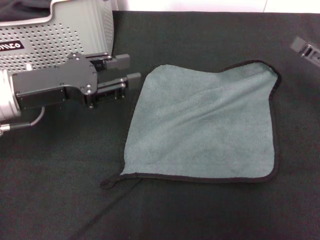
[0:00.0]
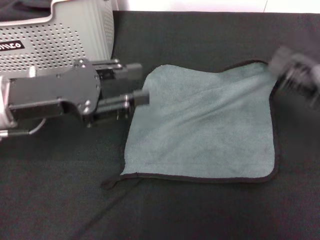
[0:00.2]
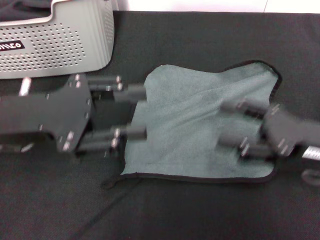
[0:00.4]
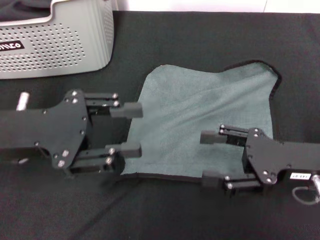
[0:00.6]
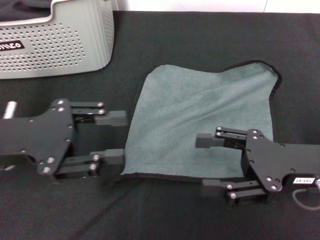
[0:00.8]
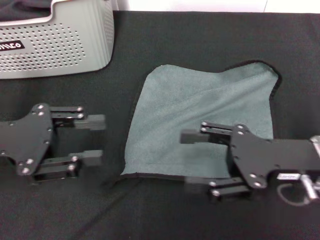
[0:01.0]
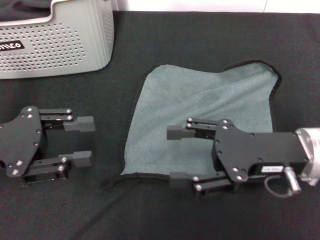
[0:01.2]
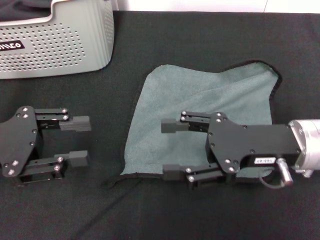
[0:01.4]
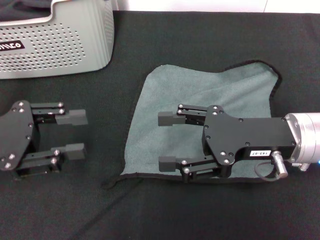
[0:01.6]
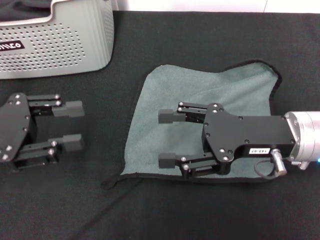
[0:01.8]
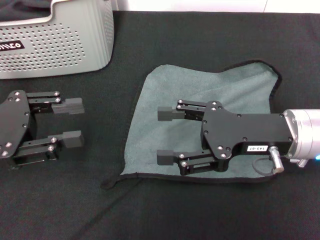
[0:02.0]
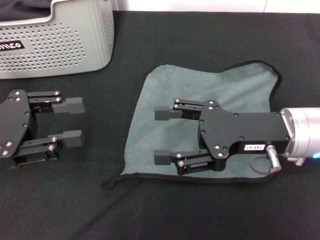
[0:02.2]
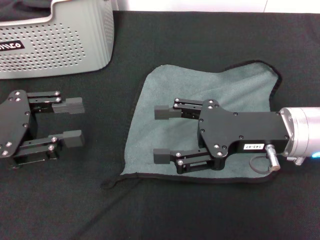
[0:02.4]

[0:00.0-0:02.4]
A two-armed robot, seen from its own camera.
Task of the whole recording: pick up the towel from the storage box and lay it flat on the black tablecloth.
0:00.0 to 0:01.2: The right gripper shifts some 15 cm to the left and backward. Meanwhile the left gripper moves backward and to the left, approximately 10 cm.
0:01.2 to 0:02.4: There are only small adjustments of the grippers.
